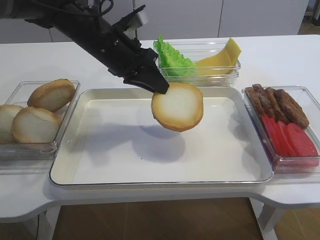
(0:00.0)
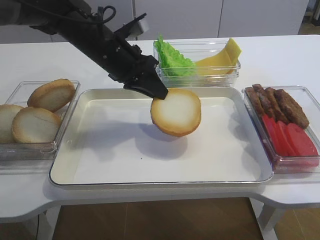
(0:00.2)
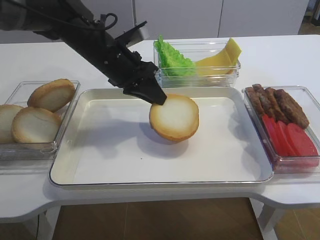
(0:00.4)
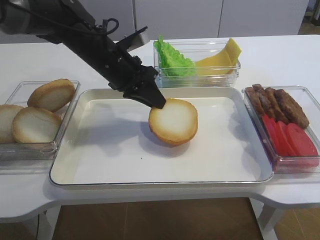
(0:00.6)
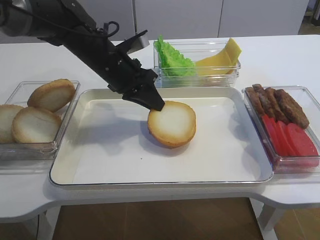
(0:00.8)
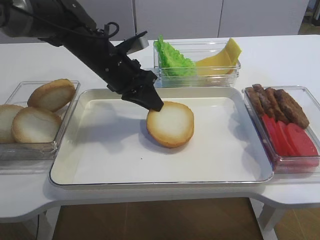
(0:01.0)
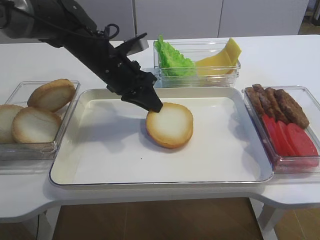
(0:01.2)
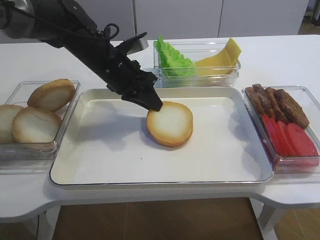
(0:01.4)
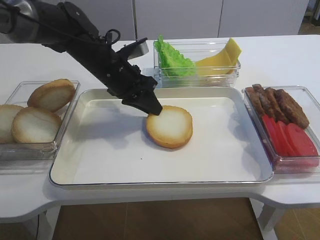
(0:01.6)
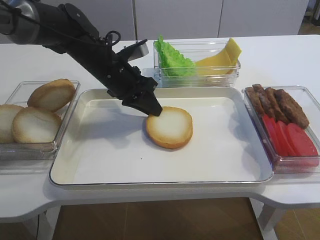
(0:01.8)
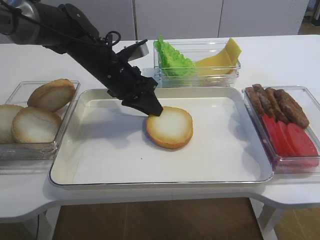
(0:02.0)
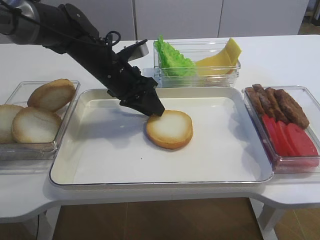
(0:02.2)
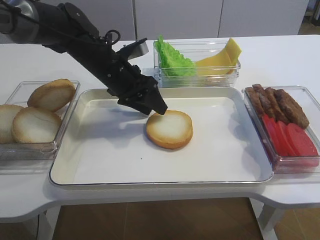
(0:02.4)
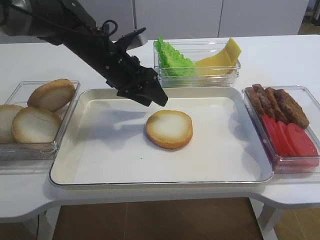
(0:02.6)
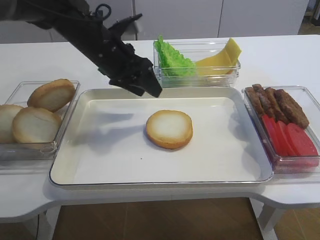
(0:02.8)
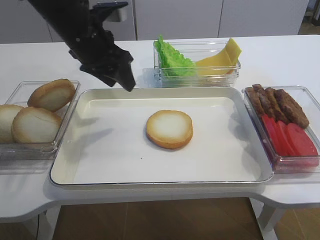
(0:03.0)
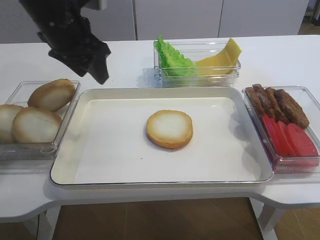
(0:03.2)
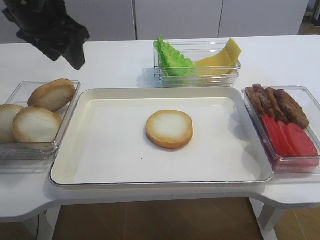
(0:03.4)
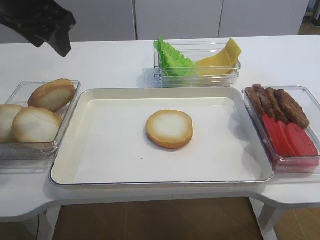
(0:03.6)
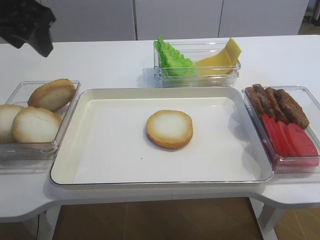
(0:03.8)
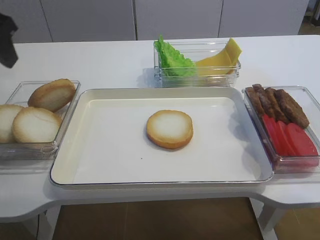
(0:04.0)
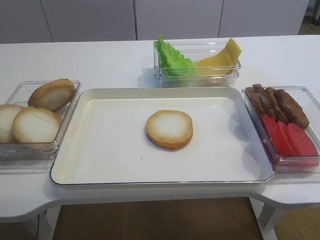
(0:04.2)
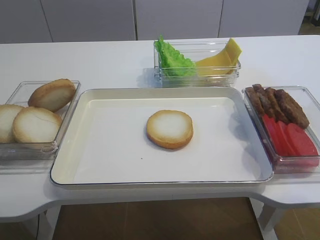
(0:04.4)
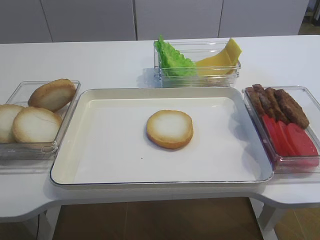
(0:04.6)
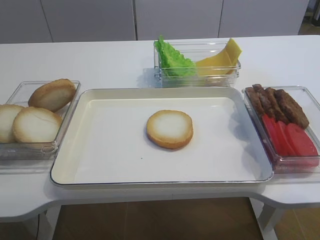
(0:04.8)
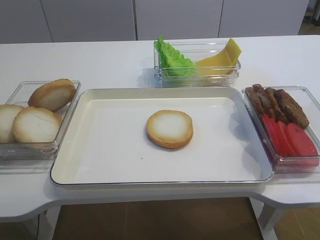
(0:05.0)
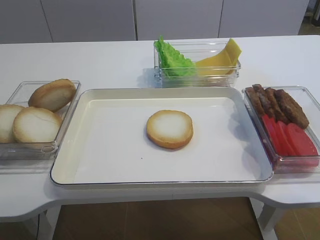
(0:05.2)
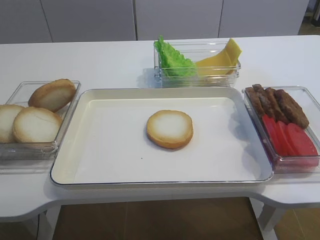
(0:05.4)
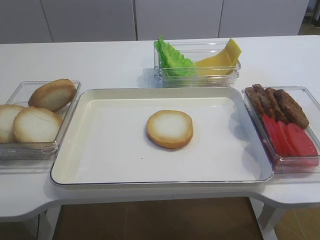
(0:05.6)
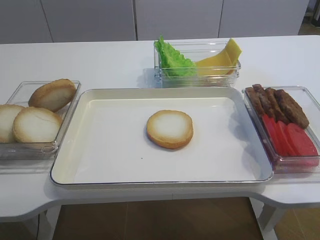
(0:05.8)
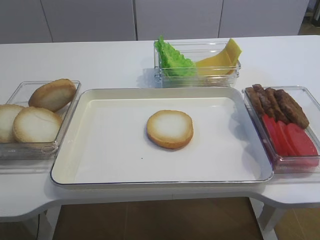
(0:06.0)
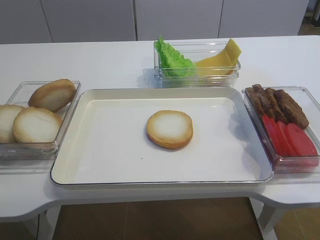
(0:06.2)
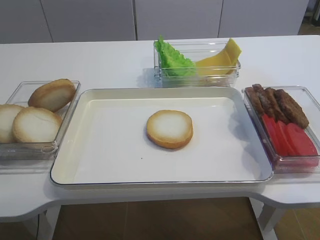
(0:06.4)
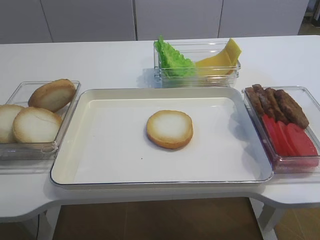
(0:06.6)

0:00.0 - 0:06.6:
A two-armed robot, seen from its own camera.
Step, 0:00.0 - 0:02.4: Place the bread slice on the tray with the left gripper.
0:00.0 - 0:01.6: The left gripper moves downward, about 5 cm.
0:01.6 - 0:03.2: The left gripper shifts some 15 cm upward and to the left, and opens.
0:03.2 - 0:05.0: The left gripper shifts roughly 30 cm backward and to the left.

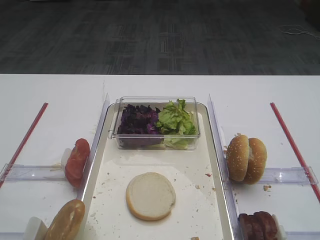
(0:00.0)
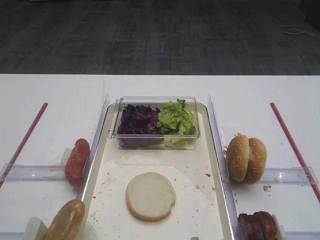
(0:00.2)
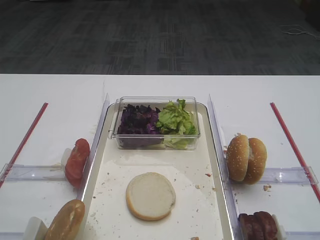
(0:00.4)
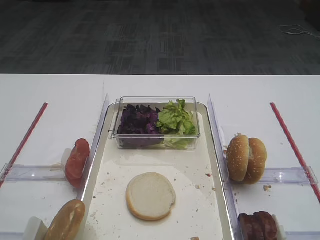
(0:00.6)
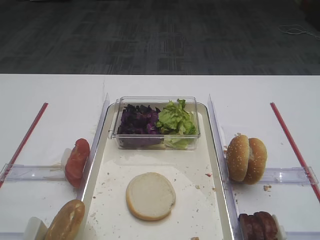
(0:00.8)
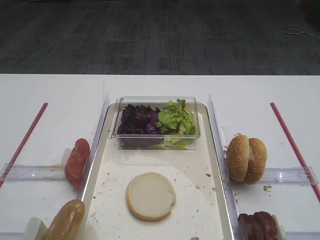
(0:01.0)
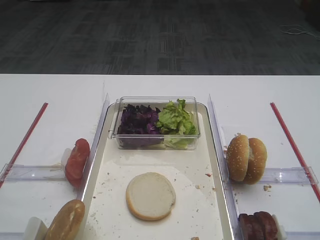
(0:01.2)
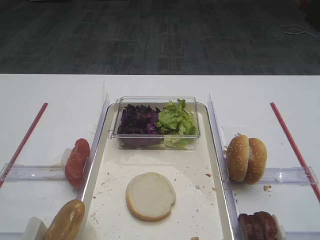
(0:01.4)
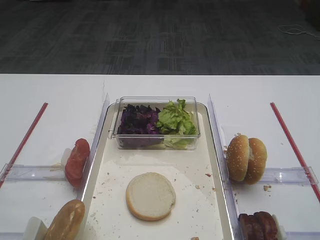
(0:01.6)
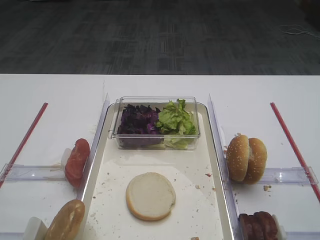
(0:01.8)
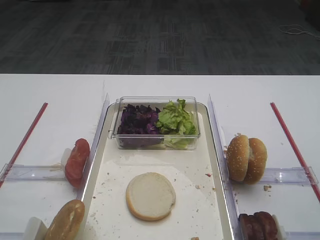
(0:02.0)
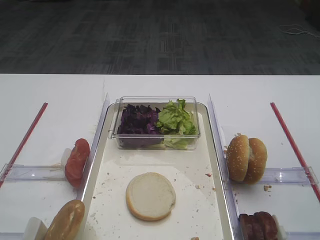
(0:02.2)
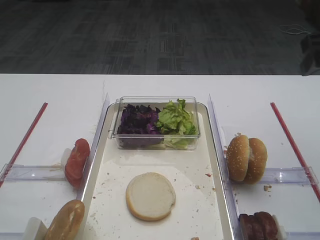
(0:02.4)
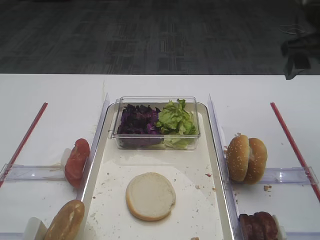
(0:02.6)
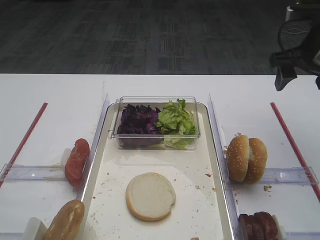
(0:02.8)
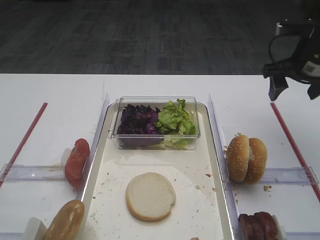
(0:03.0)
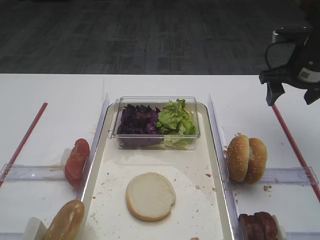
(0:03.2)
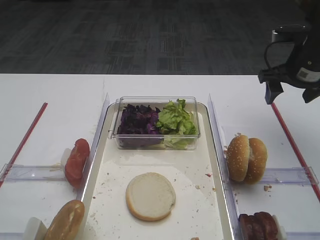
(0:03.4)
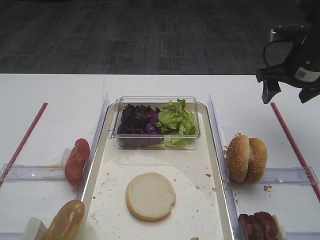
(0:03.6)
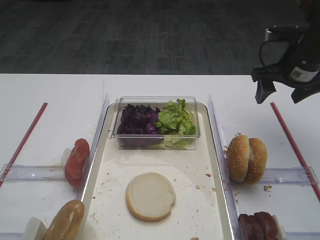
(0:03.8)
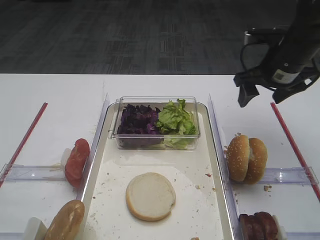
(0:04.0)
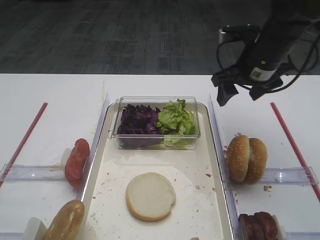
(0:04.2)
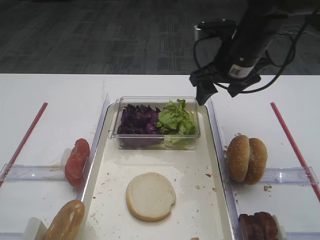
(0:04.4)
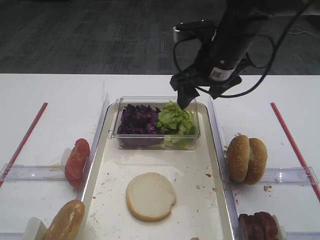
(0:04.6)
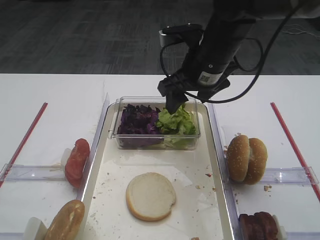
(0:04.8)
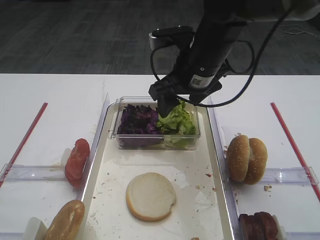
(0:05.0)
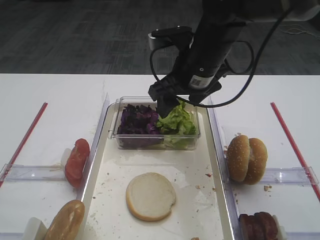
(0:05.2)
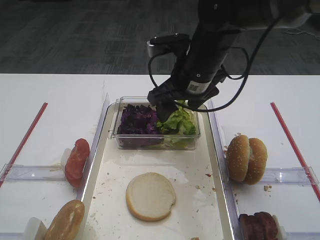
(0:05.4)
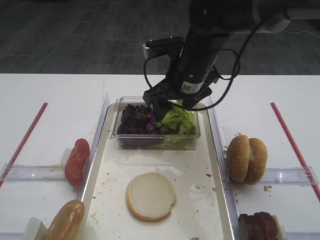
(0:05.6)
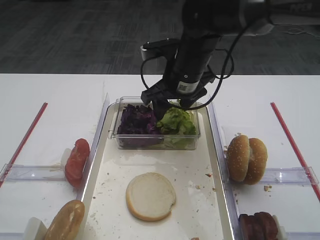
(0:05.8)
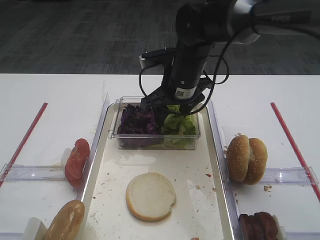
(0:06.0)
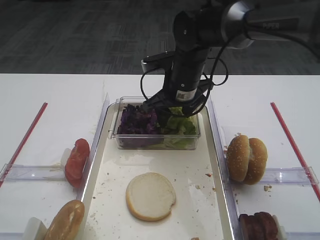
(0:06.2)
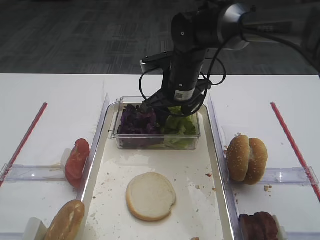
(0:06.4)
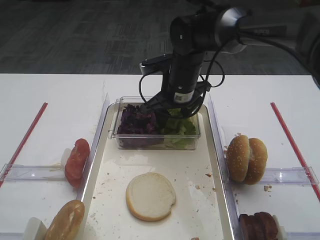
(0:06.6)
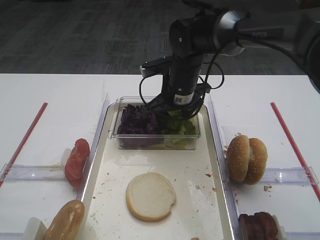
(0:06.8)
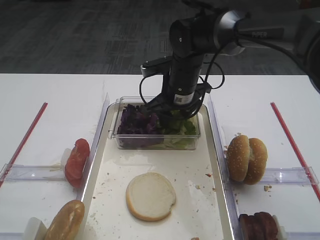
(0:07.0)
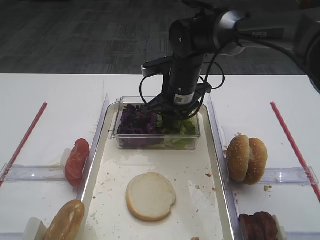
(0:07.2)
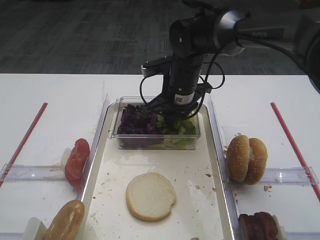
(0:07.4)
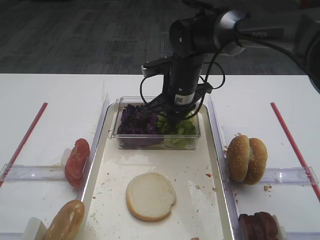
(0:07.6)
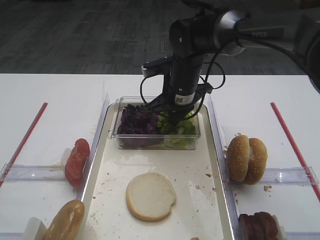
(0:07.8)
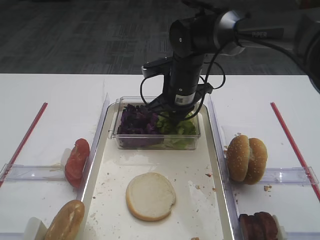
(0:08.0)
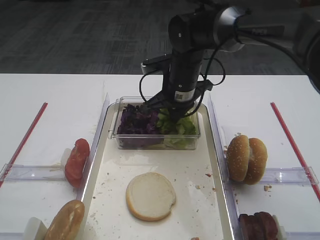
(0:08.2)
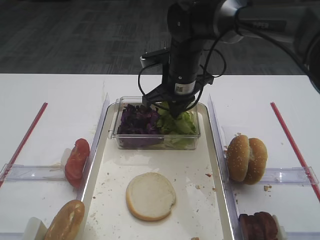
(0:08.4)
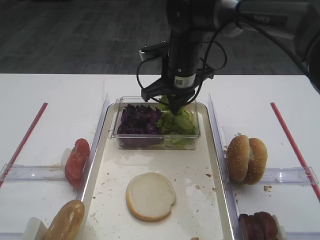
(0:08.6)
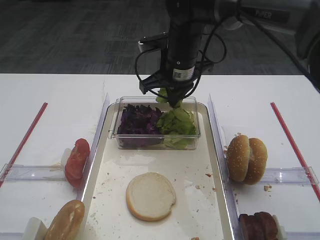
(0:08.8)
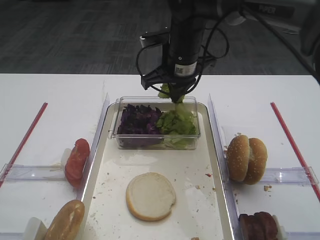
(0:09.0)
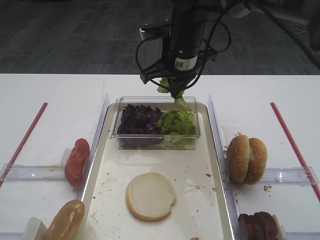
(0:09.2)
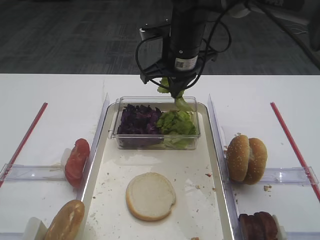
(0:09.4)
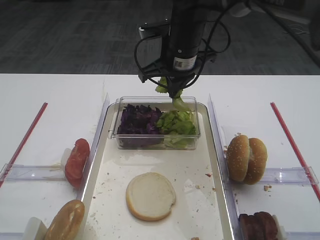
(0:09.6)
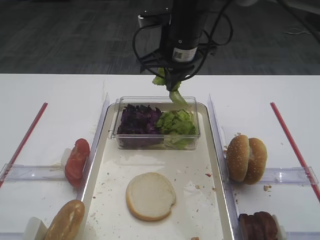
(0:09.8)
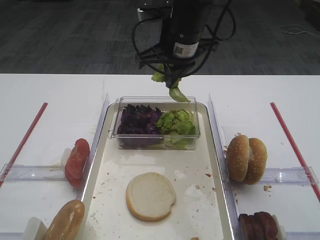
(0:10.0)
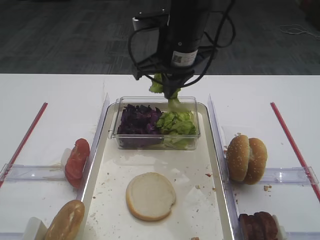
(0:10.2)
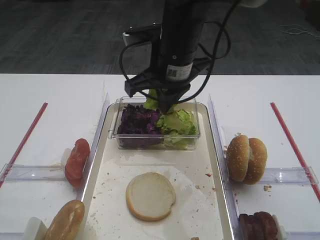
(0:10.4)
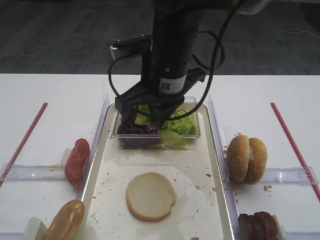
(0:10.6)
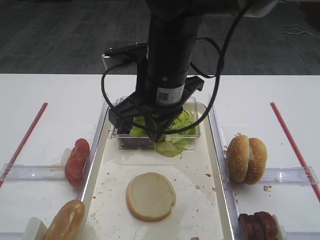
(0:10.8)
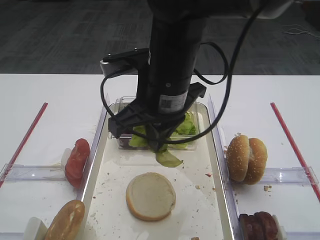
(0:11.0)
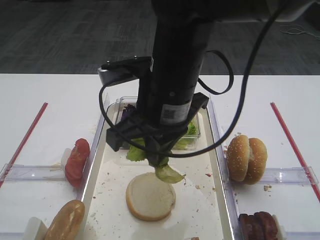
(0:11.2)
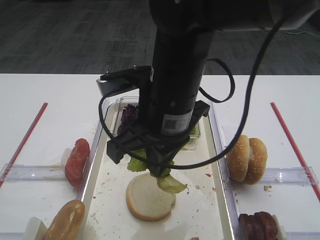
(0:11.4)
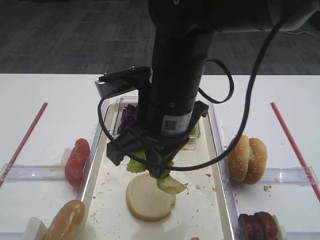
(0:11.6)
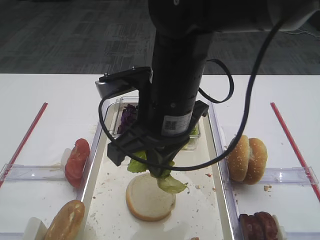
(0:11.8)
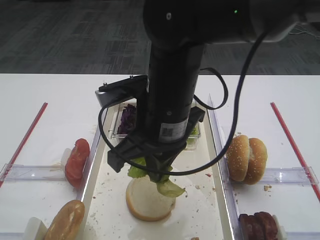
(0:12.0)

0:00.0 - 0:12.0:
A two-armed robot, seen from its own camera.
Step, 0:00.0 - 0:09.4: Pick up the lettuce leaf with the right gripper.
0:01.6 - 0:03.0: The right gripper shifts about 30 cm forward.
0:03.0 - 0:04.4: The right gripper is displaced to the left by approximately 15 cm.
0:04.4 - 0:06.0: The right gripper goes about 10 cm to the left.
0:06.0 - 0:07.6: The right gripper closes up.
0:07.6 - 0:09.0: The right gripper heads upward, covering about 5 cm.
0:09.0 - 0:10.4: The right gripper heads backward, covering about 5 cm.
0:10.4 - 0:12.0: The right gripper travels backward by roughly 10 cm.

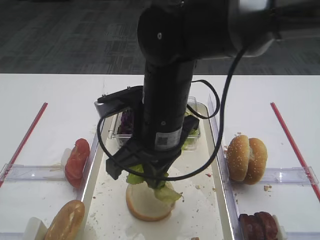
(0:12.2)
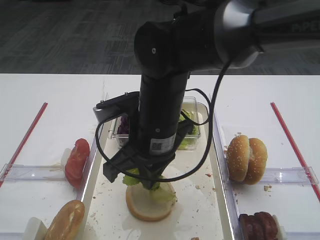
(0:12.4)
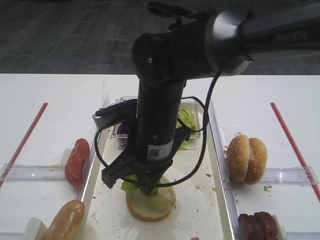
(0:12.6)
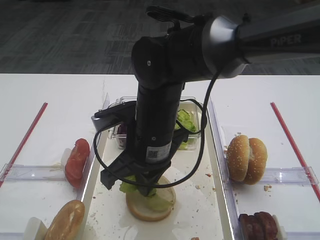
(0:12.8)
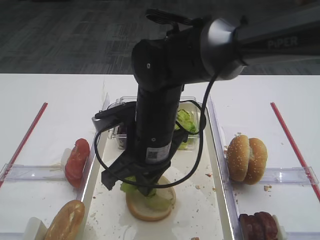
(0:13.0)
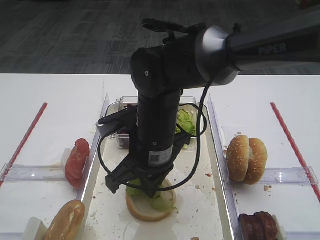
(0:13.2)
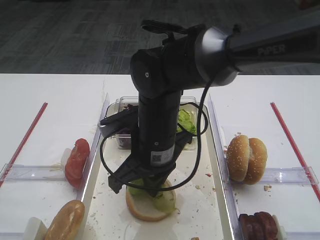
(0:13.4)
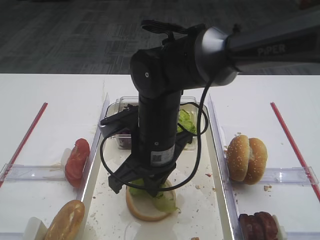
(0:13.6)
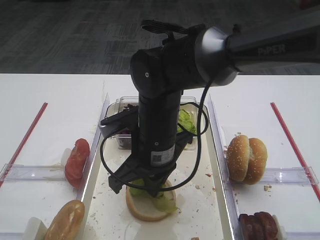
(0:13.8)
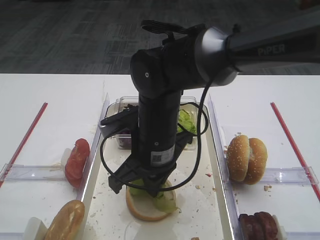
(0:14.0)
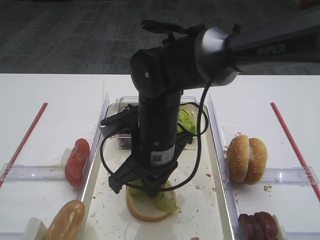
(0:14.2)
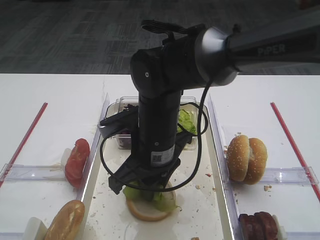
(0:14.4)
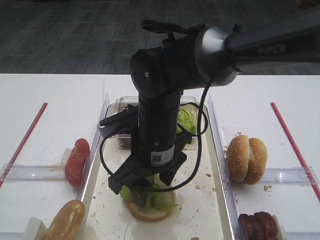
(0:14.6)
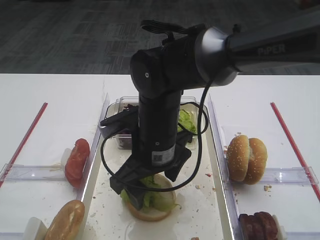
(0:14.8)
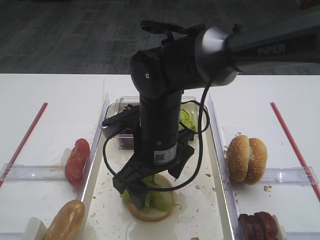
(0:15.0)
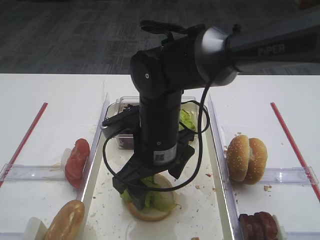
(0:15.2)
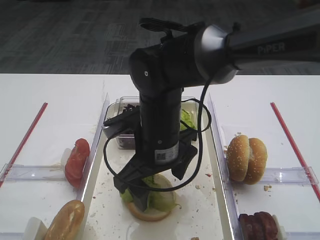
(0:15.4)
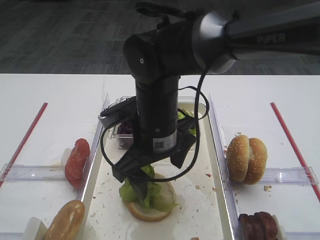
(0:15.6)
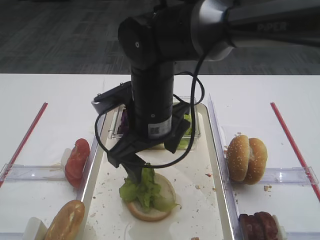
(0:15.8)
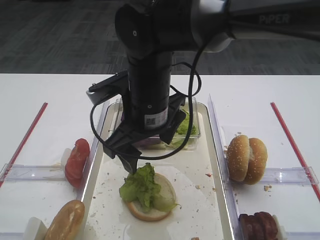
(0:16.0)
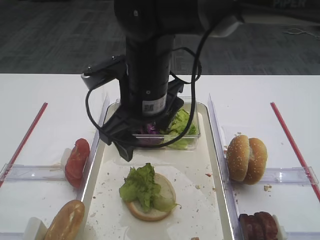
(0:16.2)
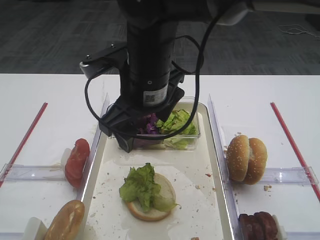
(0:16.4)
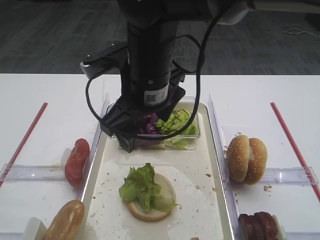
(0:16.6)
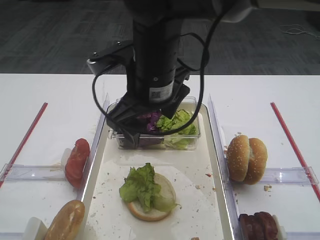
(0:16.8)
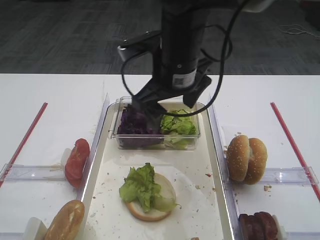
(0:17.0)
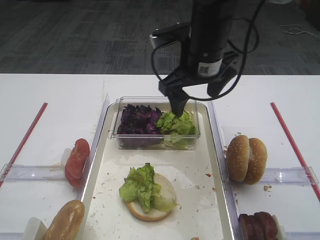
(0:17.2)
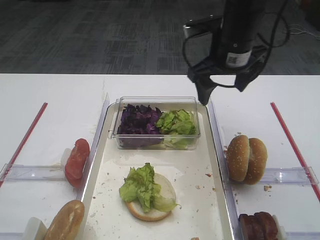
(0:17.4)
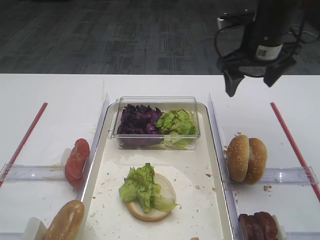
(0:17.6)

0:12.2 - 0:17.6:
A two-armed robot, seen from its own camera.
Step, 0:12.2 - 0:15.8: Place the lettuce leaf on the bread slice with the right gripper.
0:12.2 - 0:13.6: The right gripper goes about 5 cm downward.
0:13.6 - 0:15.0: The right gripper opens.
0:15.0 - 0:16.2: The right gripper heads upward, covering approximately 5 cm.
0:16.2 - 0:17.6: The right gripper shifts approximately 25 cm to the right and forward.
